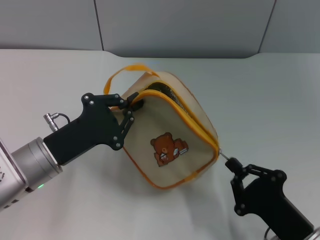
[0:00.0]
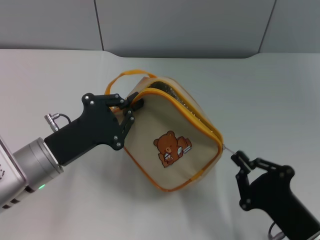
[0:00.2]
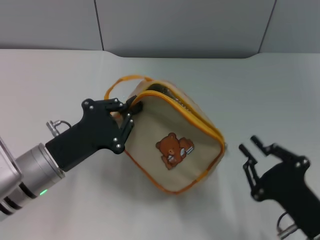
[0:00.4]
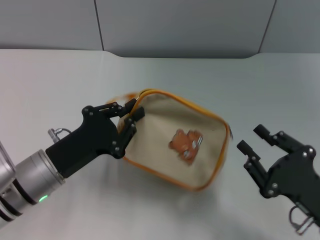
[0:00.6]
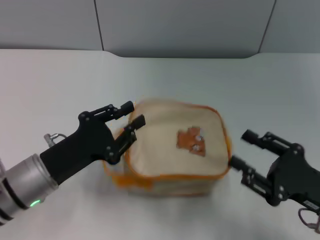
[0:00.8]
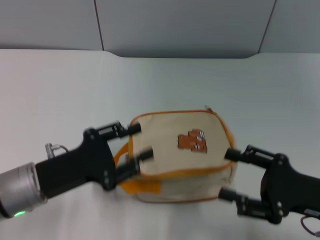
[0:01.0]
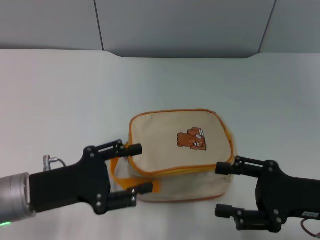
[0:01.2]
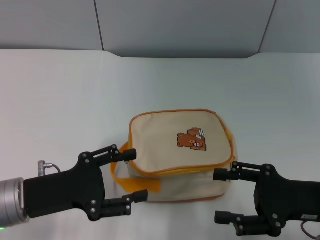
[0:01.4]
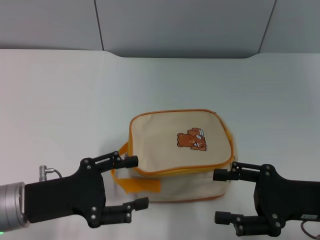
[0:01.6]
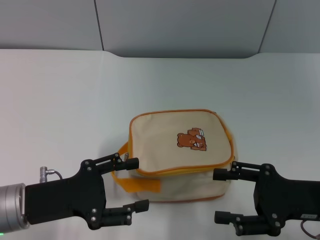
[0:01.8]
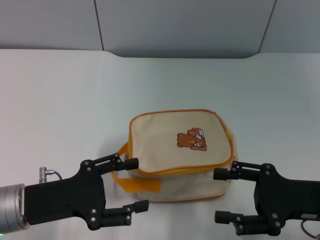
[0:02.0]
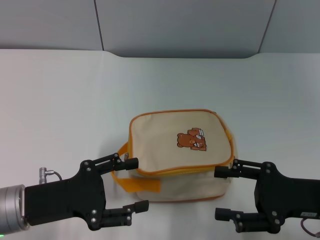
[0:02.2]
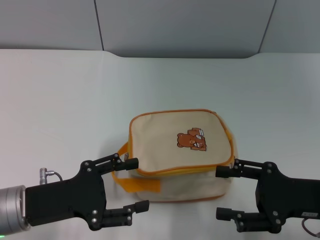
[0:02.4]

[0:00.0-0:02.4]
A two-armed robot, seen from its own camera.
Step, 0:00.6 to 0:00.8: Place the bag on the table with left gripper.
0:00.0 to 0:01.2: The right gripper shifts roughly 10 cm forward, upward and to the right, and opens its fingers, while the left gripper opens its fingers.
0:01.2 to 0:02.4: The grippers move only a little.

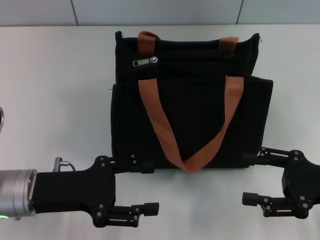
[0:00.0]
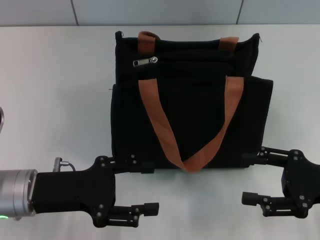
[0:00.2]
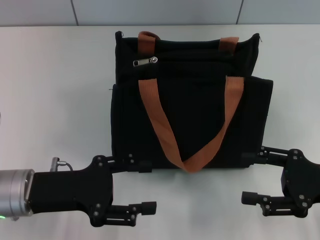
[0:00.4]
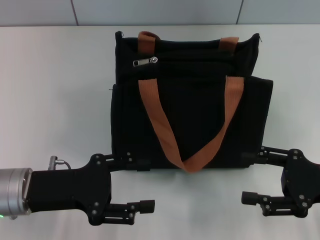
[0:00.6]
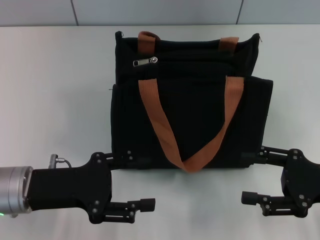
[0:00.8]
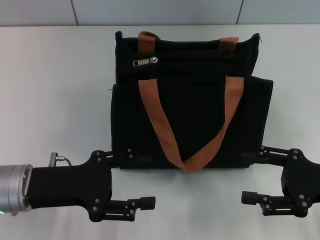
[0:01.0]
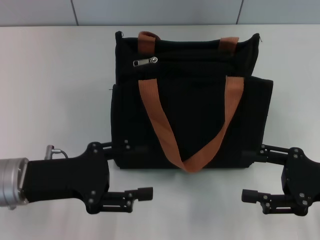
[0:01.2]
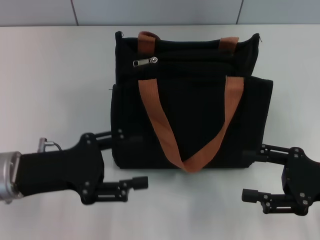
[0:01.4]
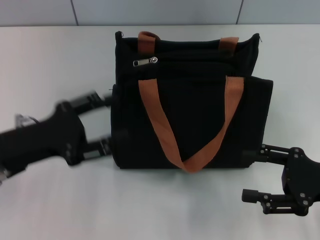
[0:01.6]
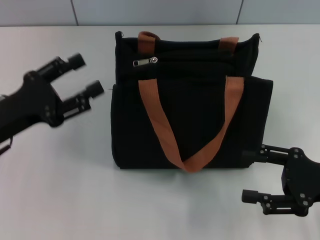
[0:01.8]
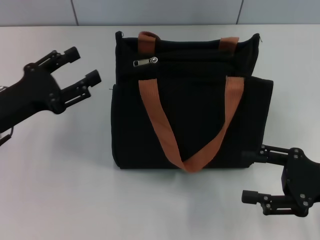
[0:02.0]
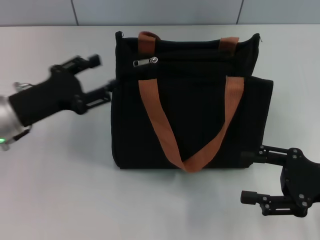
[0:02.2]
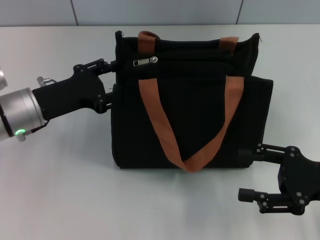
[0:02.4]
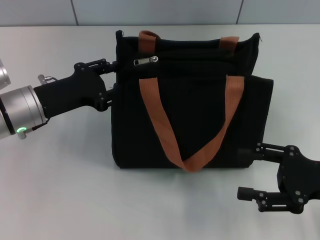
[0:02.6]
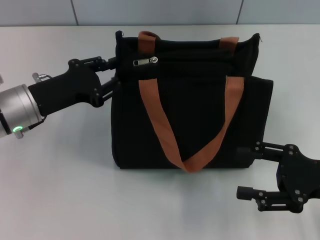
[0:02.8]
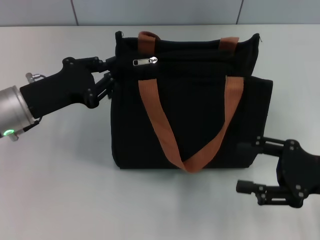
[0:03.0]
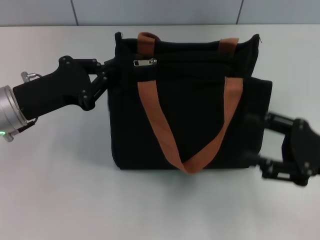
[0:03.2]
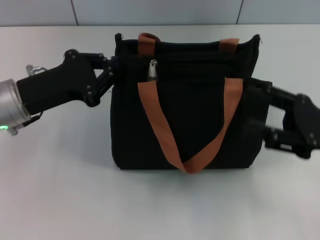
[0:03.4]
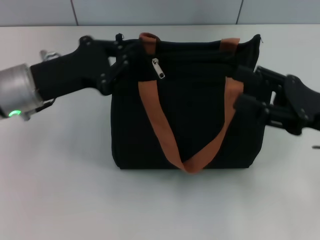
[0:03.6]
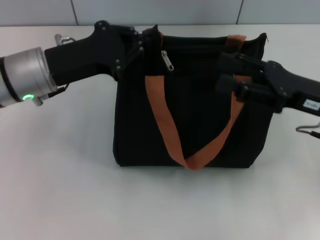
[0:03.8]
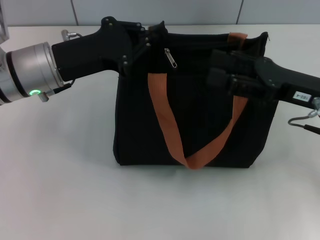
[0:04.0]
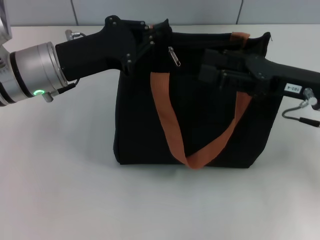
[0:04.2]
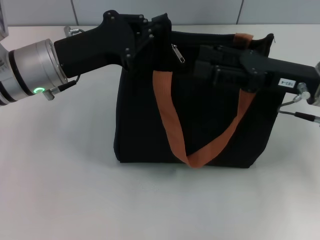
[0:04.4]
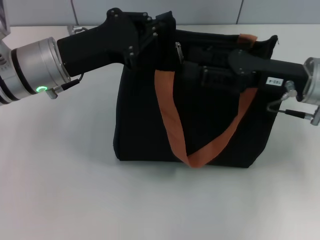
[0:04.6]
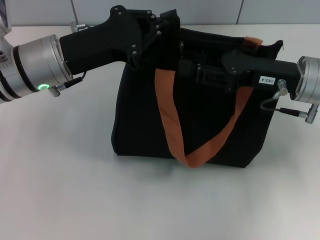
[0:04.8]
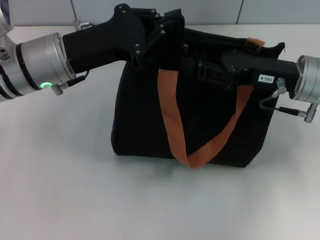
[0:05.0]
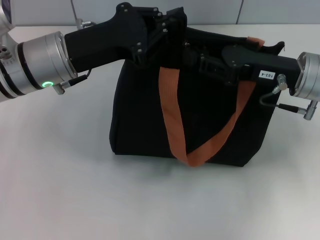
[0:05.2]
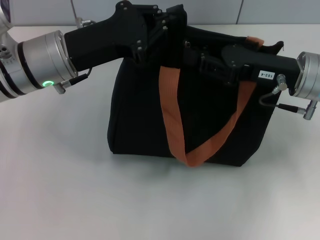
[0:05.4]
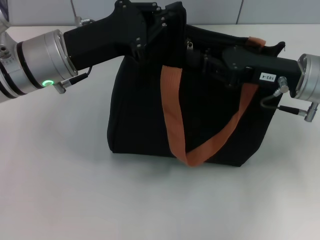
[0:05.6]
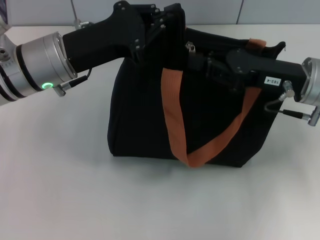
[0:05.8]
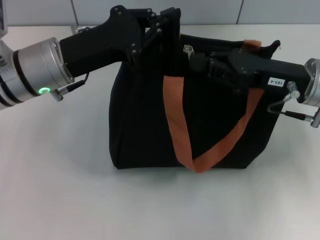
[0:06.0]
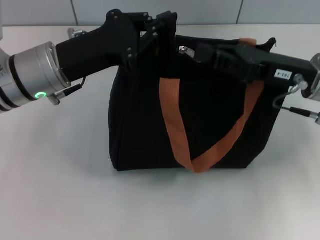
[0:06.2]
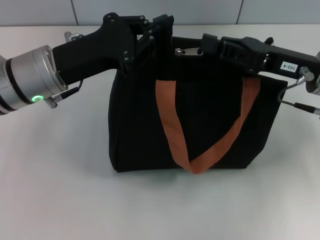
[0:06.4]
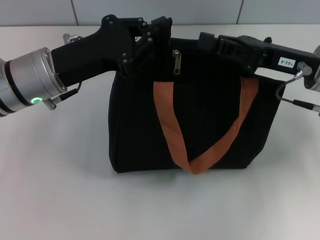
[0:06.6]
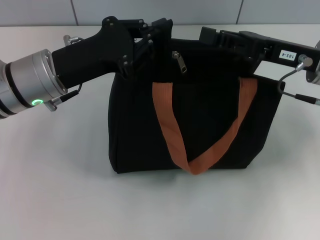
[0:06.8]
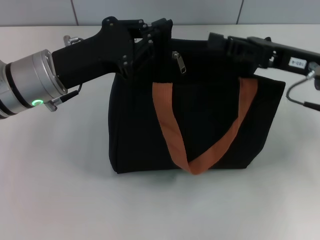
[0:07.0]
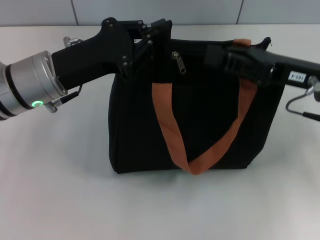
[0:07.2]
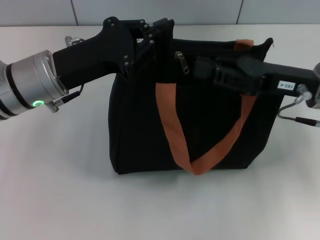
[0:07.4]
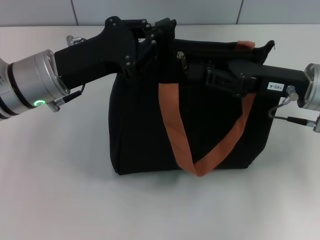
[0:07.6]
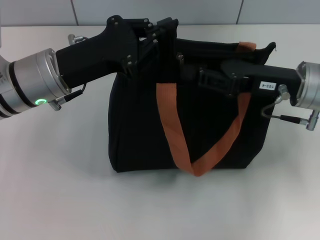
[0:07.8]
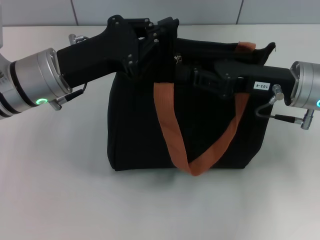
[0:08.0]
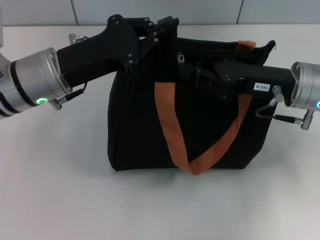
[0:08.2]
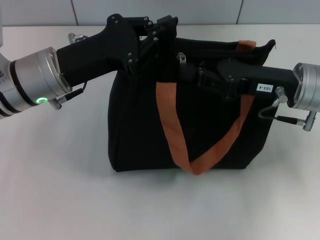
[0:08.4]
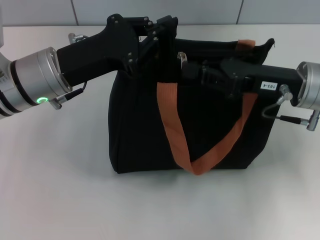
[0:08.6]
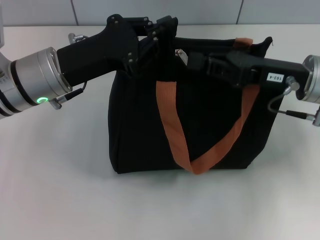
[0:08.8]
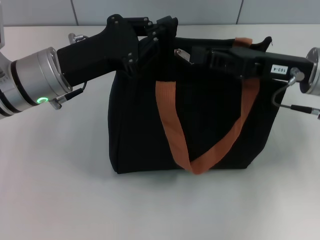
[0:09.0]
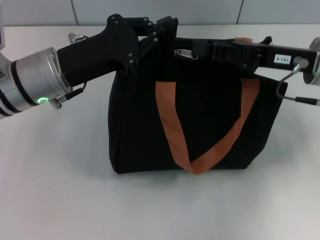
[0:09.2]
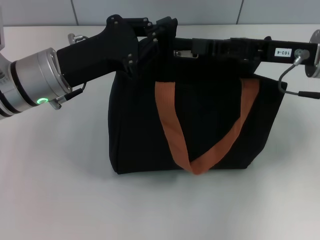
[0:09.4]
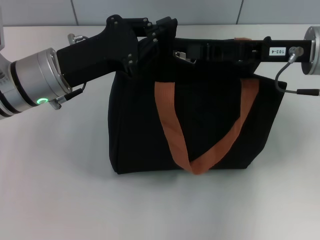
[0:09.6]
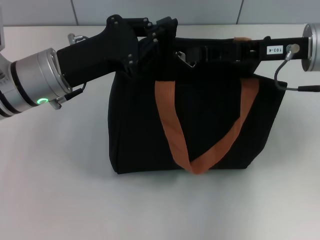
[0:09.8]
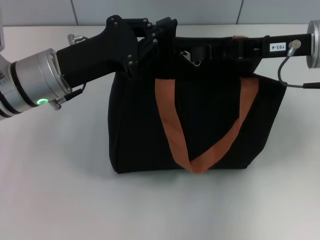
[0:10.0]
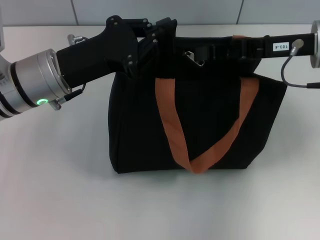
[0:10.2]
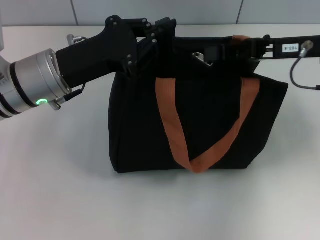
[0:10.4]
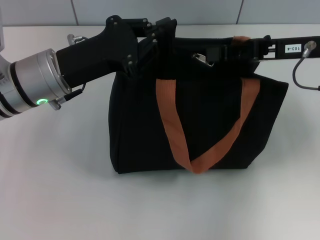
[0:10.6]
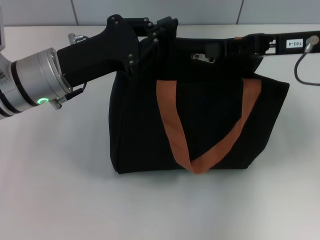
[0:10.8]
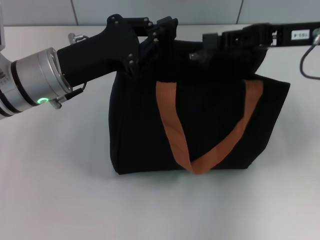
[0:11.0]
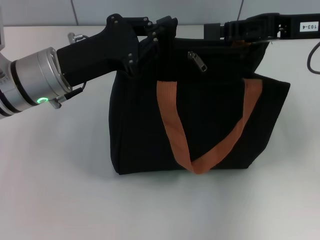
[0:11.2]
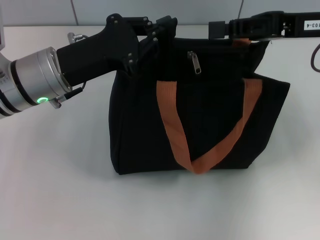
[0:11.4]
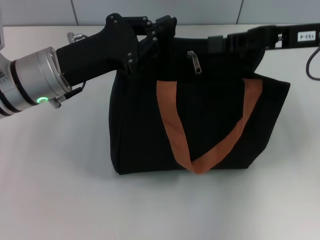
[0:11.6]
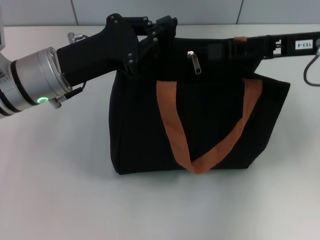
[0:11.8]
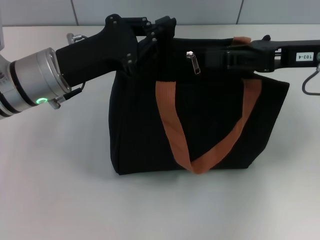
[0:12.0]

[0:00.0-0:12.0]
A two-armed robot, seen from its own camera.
0:00.0 to 0:01.6: The grippers move only a little.
0:01.6 to 0:03.0: The left gripper moves forward, roughly 5 cm, and closes its fingers.
0:03.0 to 0:04.4: The right gripper is displaced forward, to the left and upward by some 15 cm. Meanwhile the left gripper moves to the right, roughly 5 cm, and closes.
0:04.4 to 0:06.0: The right gripper closes up.
0:06.0 to 0:09.0: The grippers stay close to where they were, moving slightly.
0:09.0 to 0:10.4: The grippers make only small movements.
0:10.4 to 0:12.0: The grippers make only small movements.

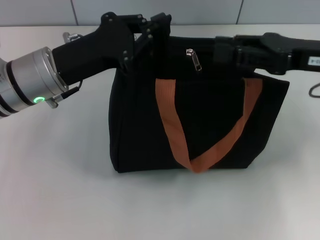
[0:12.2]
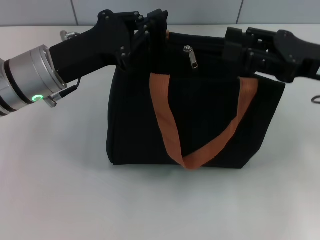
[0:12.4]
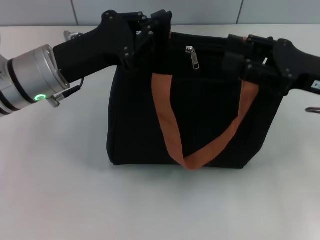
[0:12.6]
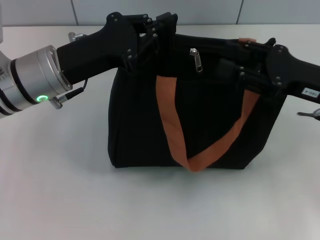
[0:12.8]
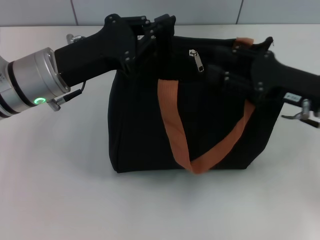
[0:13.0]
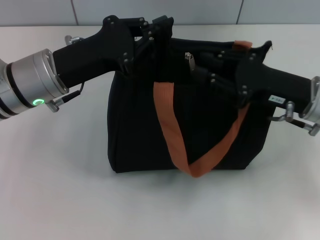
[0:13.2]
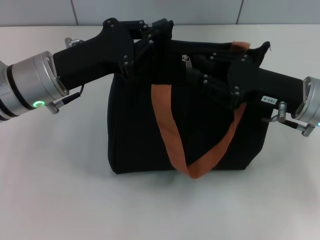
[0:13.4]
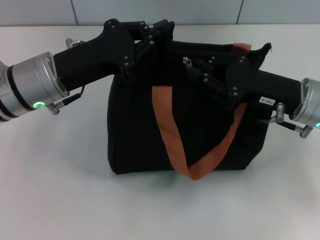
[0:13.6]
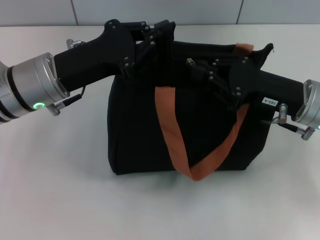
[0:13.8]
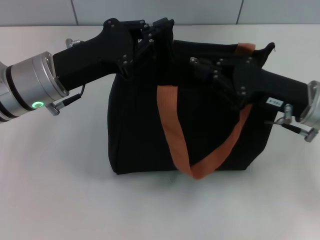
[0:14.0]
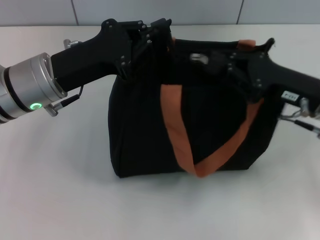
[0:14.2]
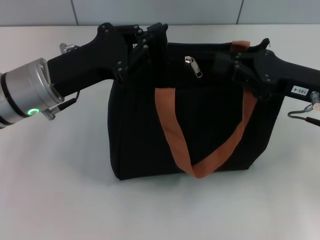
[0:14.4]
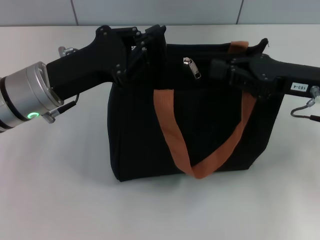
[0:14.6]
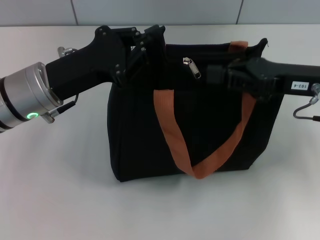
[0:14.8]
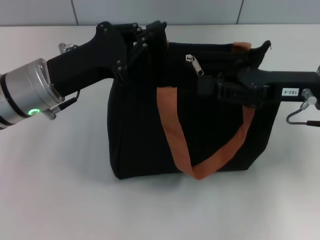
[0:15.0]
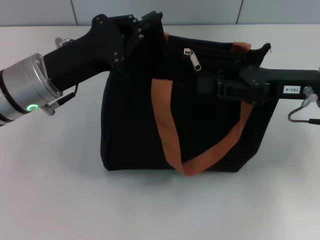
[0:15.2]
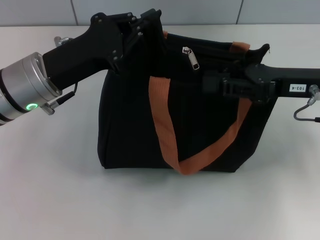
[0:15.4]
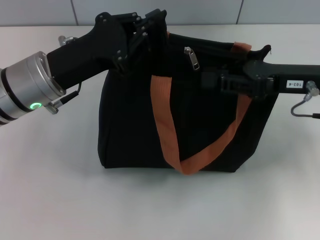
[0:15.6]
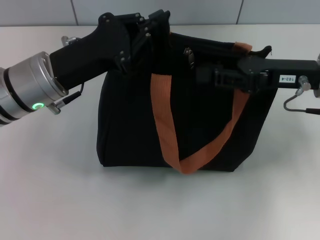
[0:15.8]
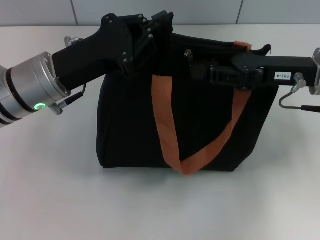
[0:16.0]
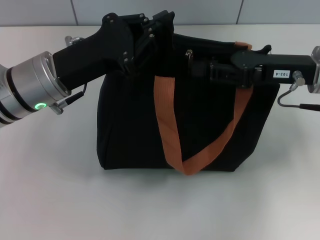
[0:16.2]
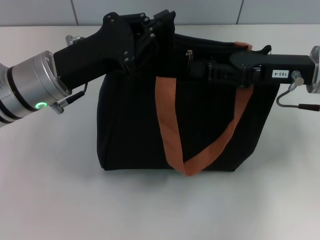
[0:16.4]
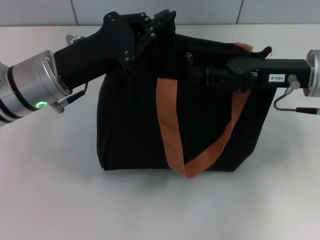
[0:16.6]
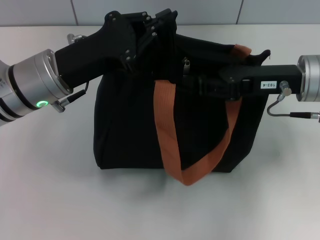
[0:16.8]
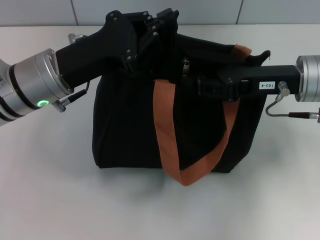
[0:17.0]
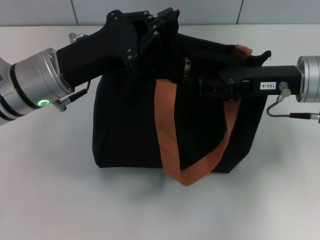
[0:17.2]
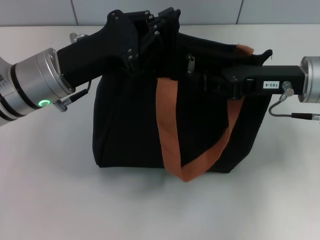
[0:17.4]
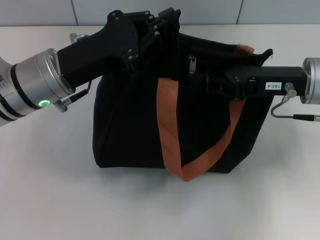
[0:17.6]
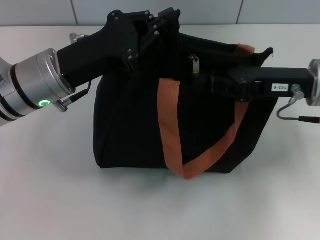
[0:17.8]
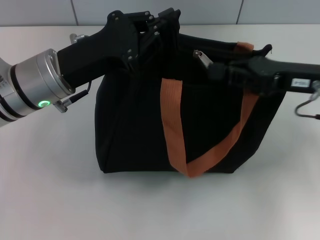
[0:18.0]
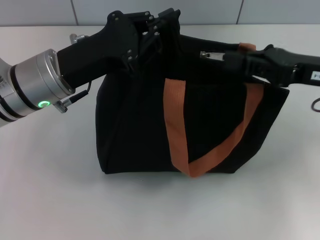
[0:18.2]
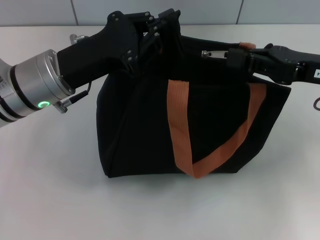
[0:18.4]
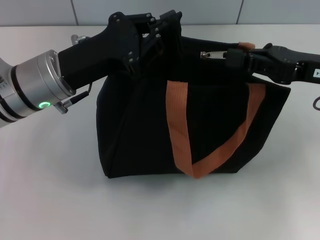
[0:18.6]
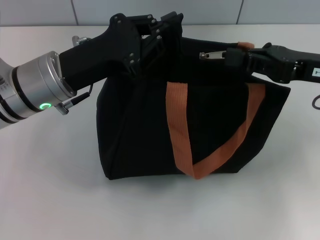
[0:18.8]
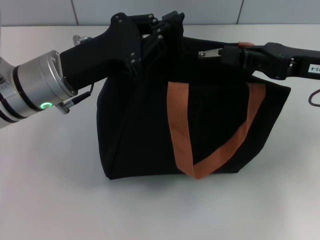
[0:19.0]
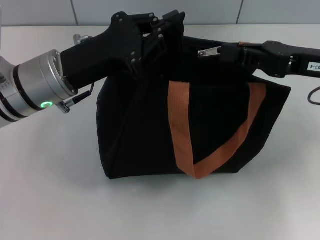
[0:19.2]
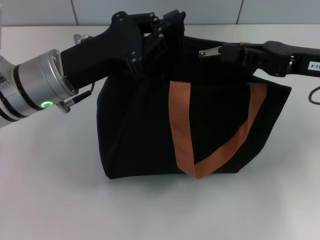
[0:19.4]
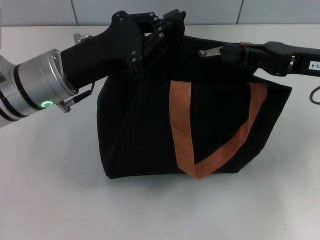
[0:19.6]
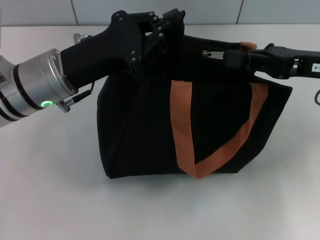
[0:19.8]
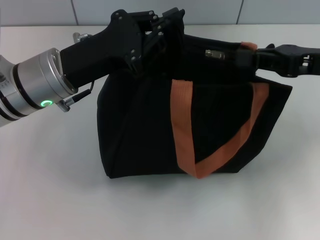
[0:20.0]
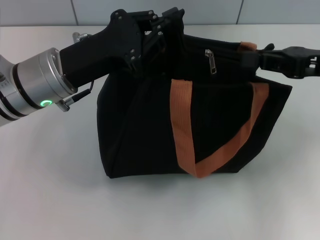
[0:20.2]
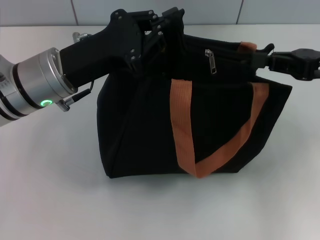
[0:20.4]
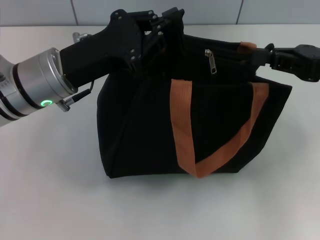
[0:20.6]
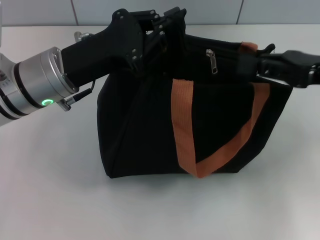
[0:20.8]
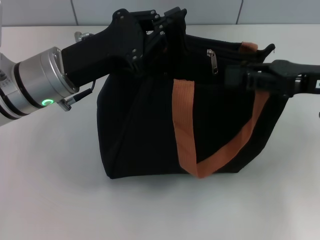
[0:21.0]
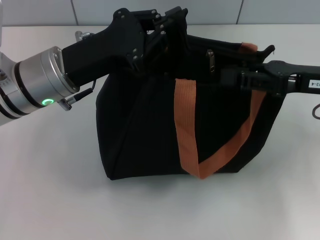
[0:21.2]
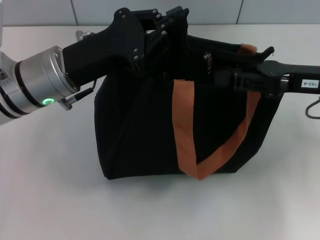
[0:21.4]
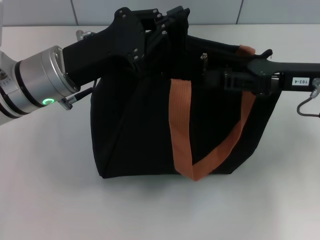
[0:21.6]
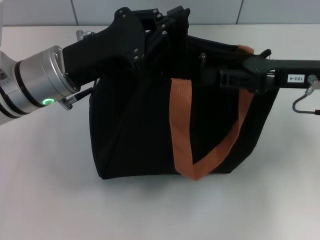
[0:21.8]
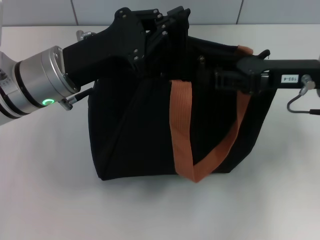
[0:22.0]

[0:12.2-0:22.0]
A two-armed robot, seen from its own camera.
0:12.2 to 0:13.6: The right gripper shifts approximately 10 cm downward.
0:15.0 to 0:19.2: The grippers stay close to where they were, moving slightly.
0:19.2 to 0:20.6: The grippers move only a little.
0:20.6 to 0:22.0: The right gripper travels to the left by some 5 cm.
